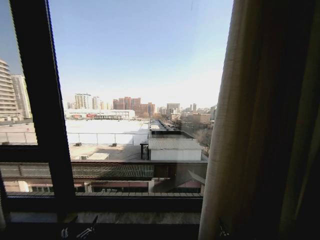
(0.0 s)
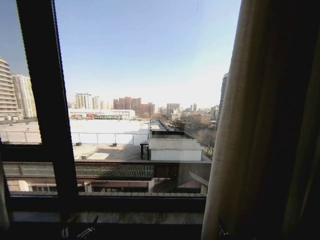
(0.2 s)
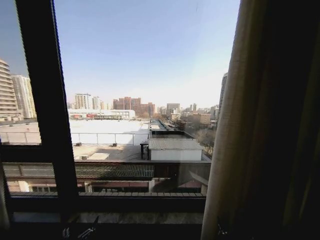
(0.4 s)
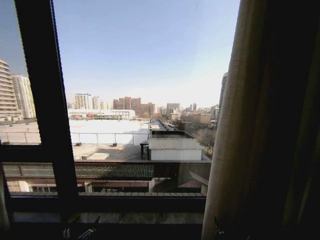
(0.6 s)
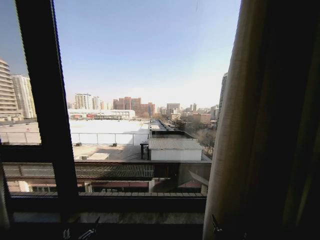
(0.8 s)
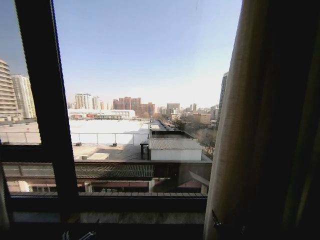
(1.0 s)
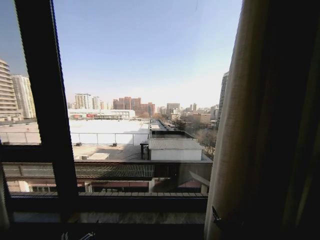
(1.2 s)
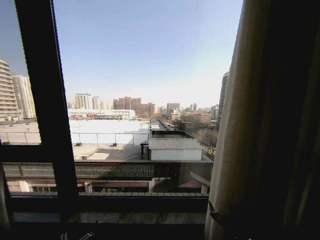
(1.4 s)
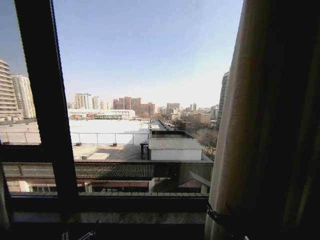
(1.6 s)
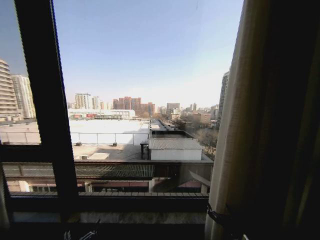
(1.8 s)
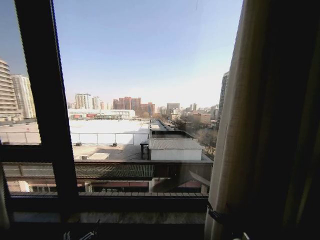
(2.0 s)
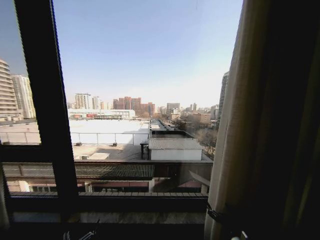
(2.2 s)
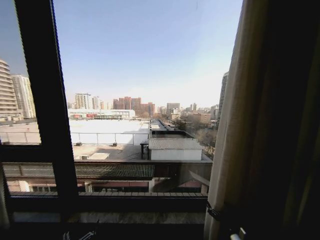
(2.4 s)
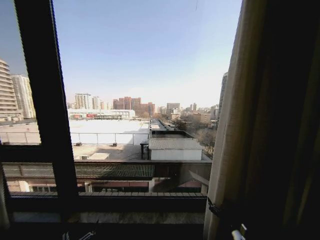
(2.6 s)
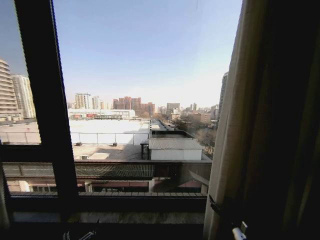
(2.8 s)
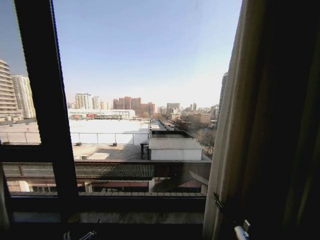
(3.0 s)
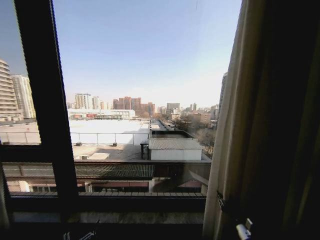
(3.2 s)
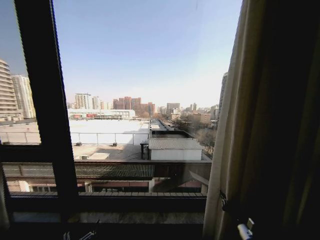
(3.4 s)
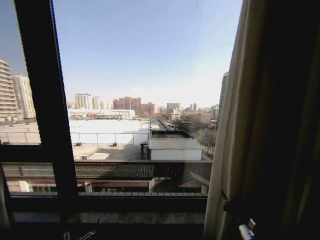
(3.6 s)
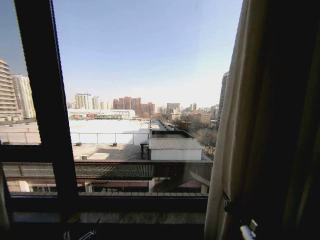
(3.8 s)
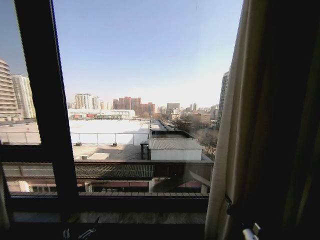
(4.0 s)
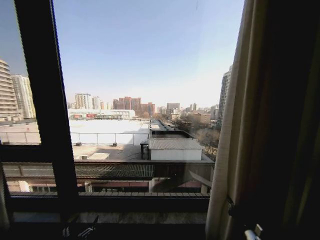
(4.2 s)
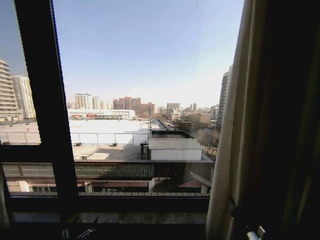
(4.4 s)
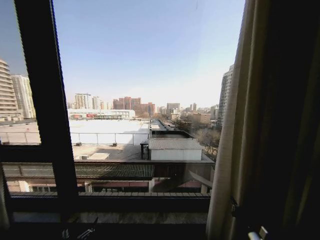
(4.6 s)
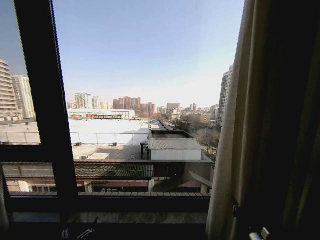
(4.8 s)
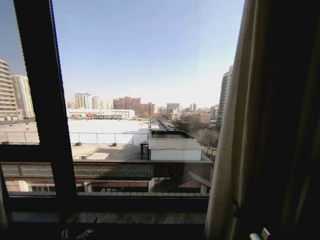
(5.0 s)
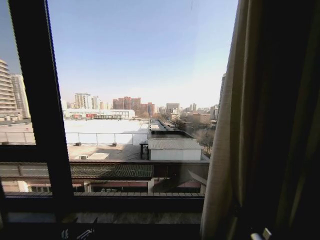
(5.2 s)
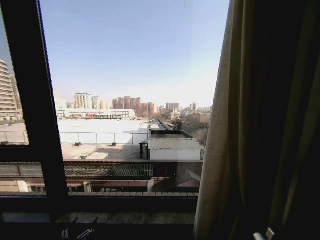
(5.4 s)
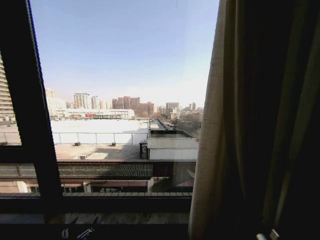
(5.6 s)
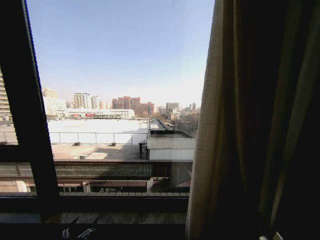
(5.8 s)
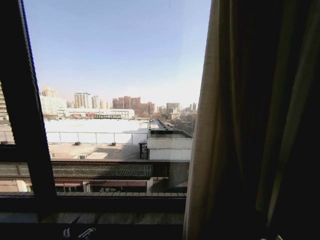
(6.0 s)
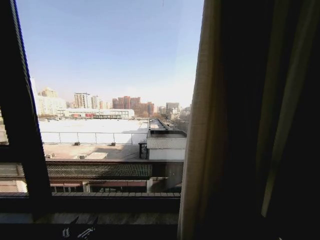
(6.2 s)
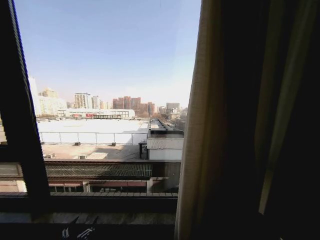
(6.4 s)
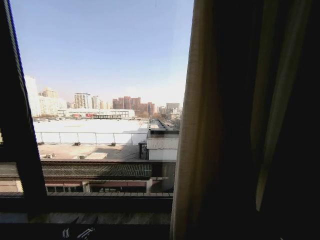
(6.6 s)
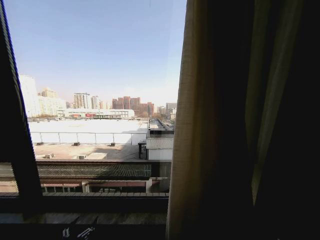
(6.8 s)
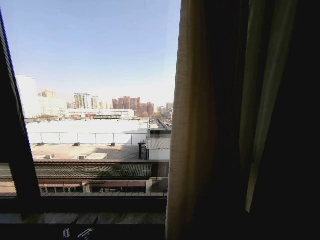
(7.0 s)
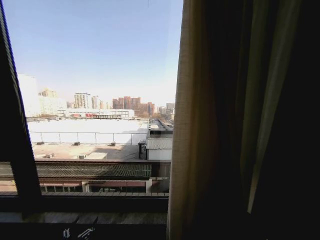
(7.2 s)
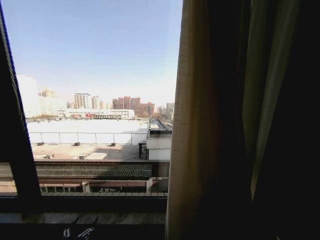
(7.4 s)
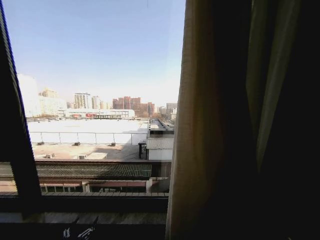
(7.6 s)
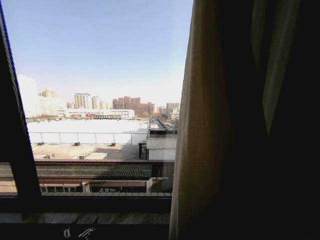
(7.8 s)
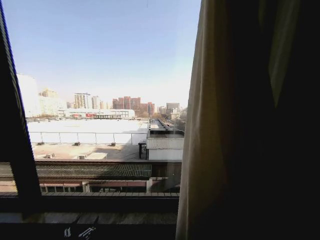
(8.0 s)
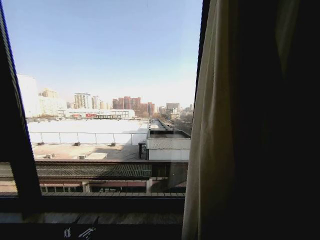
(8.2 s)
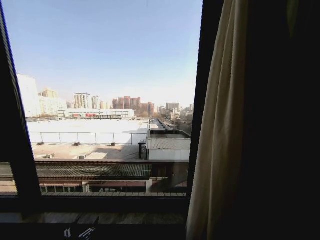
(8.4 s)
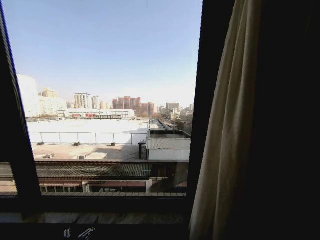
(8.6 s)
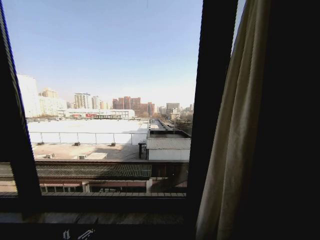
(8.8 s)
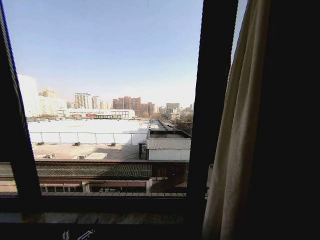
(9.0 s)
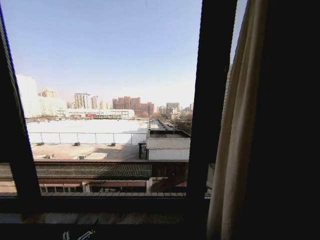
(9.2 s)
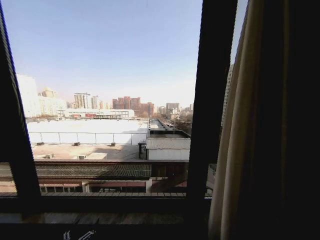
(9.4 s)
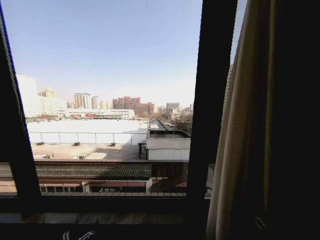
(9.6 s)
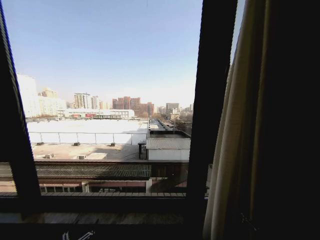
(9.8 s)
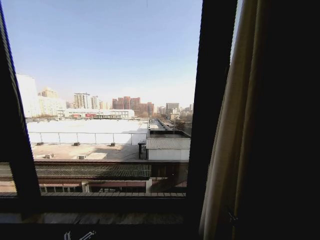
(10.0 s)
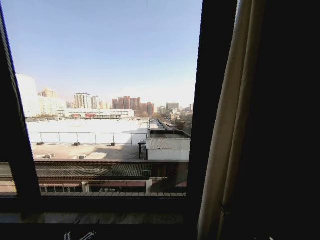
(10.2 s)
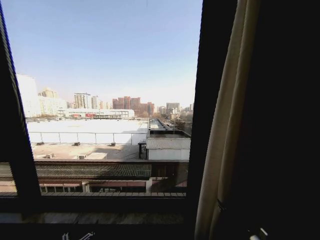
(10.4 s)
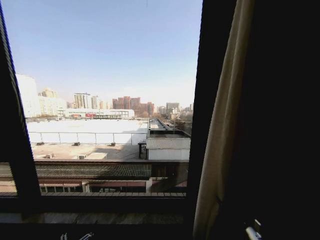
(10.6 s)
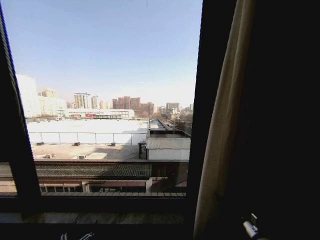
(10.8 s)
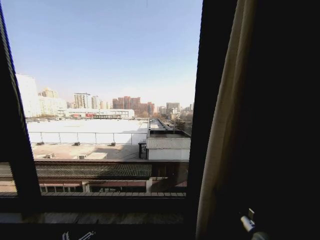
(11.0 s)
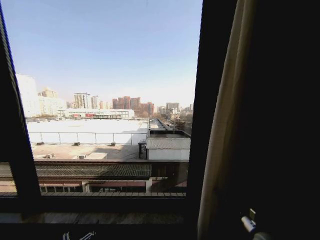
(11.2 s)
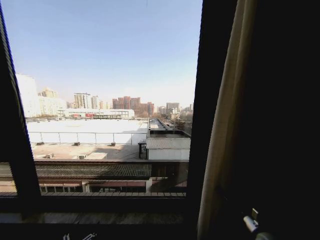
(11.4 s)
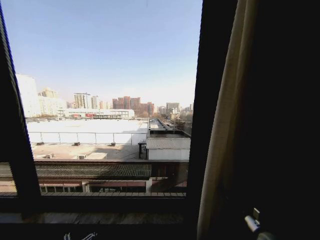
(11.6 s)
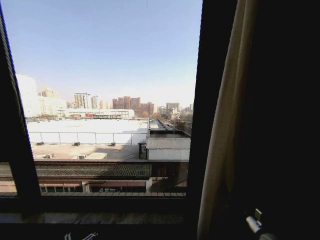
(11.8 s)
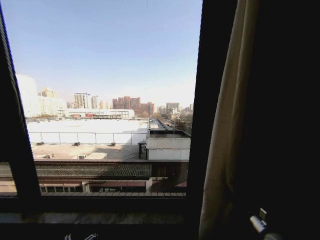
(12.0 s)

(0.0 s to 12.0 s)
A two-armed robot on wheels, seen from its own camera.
Task of the whole recording: Open the curtains by pulling them apart, changing their state from closed to fully open.
0.0 s - 1.6 s: The right gripper shifts about 10 cm forward.
1.6 s - 3.0 s: The right gripper travels forward and to the right by some 10 cm, and closes its fingers.
3.0 s - 4.4 s: The right gripper closes up.
6.0 s - 7.6 s: The grippers stay close to where they were, moving slightly.
7.6 s - 9.0 s: The right gripper is displaced to the right by some 15 cm.
9.0 s - 10.4 s: The right gripper shifts approximately 20 cm to the left, and opens up.
10.4 s - 12.0 s: The right gripper travels forward by roughly 5 cm, and closes its fingers.

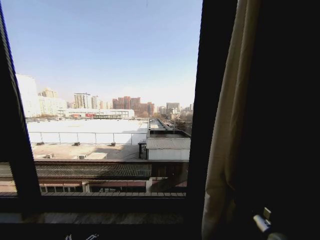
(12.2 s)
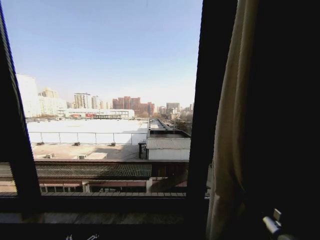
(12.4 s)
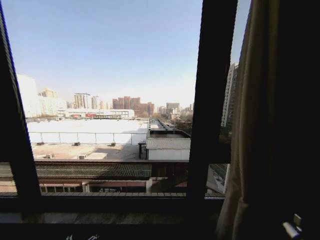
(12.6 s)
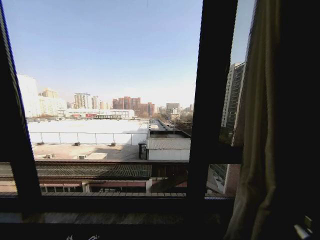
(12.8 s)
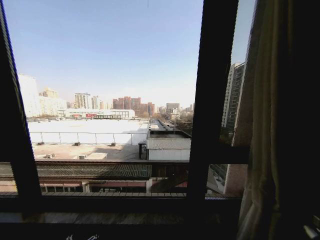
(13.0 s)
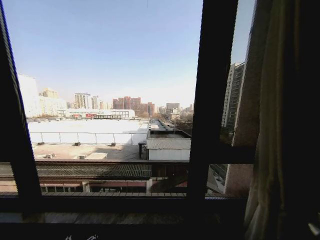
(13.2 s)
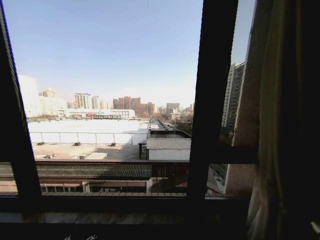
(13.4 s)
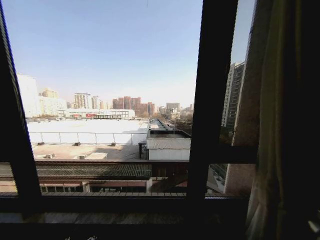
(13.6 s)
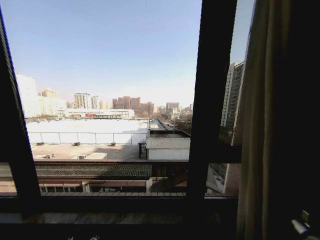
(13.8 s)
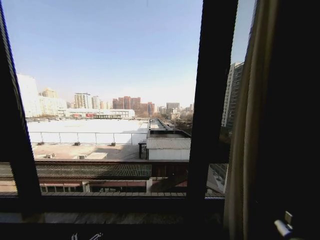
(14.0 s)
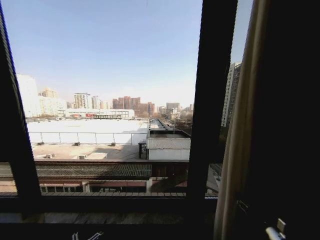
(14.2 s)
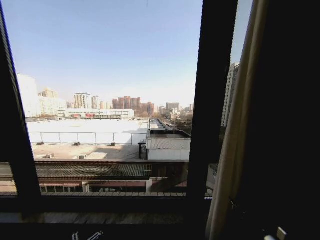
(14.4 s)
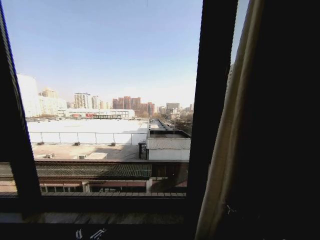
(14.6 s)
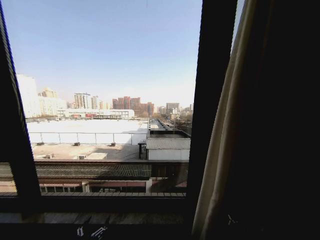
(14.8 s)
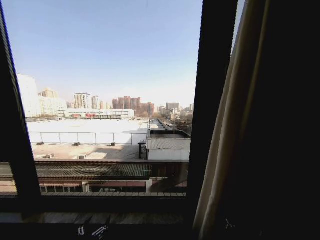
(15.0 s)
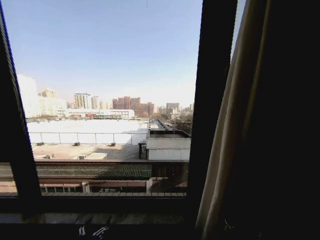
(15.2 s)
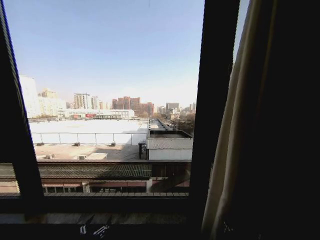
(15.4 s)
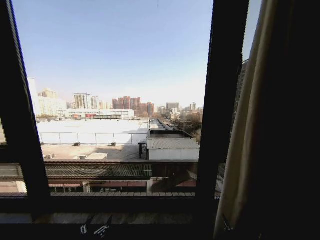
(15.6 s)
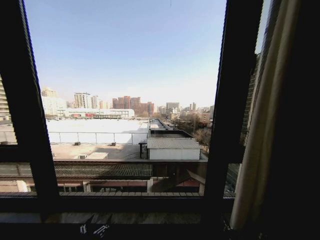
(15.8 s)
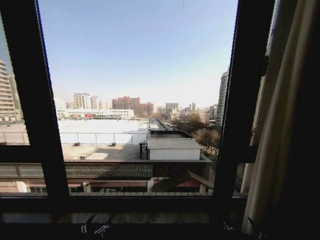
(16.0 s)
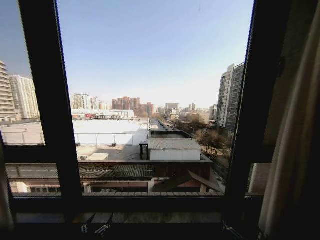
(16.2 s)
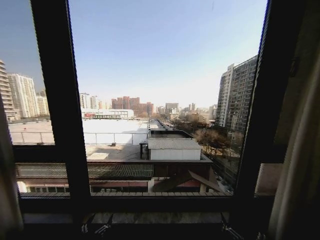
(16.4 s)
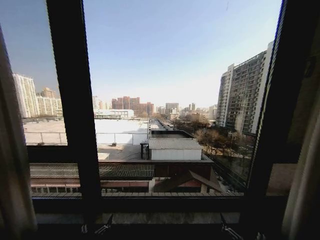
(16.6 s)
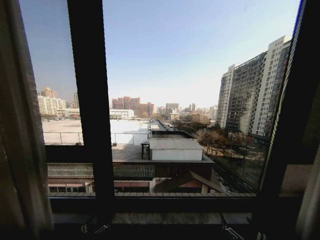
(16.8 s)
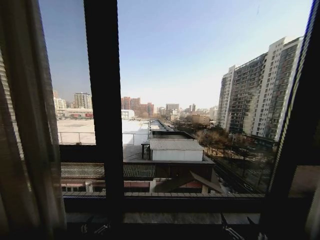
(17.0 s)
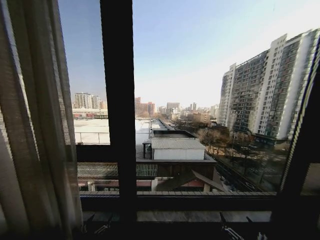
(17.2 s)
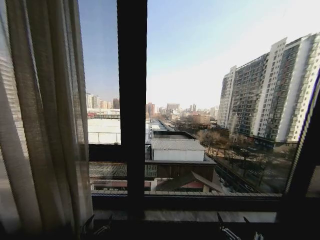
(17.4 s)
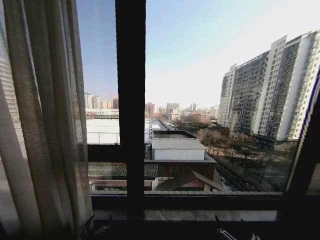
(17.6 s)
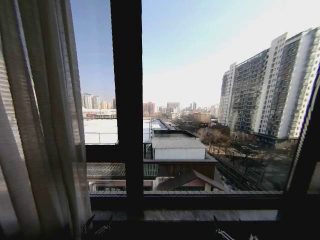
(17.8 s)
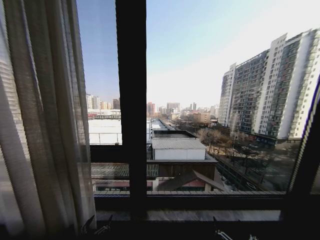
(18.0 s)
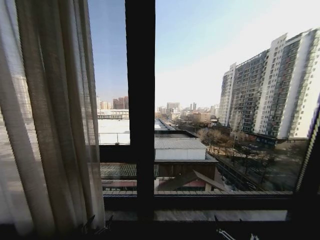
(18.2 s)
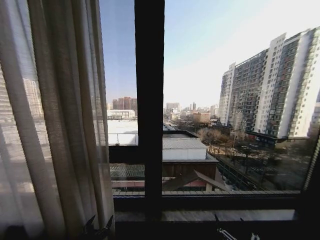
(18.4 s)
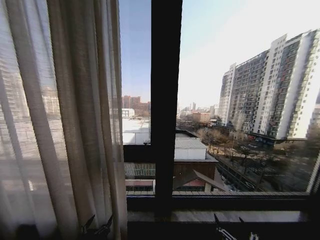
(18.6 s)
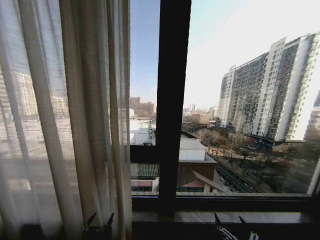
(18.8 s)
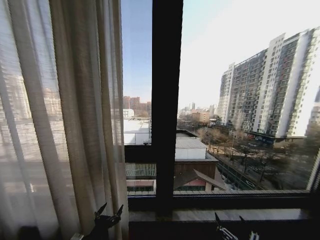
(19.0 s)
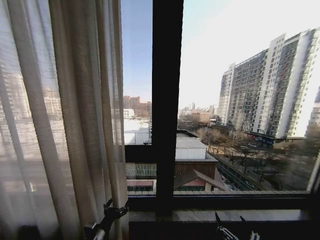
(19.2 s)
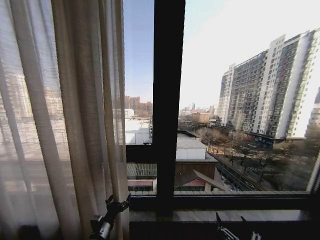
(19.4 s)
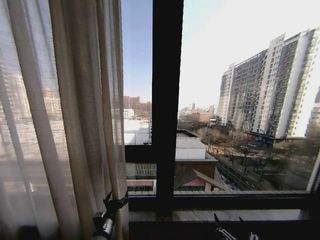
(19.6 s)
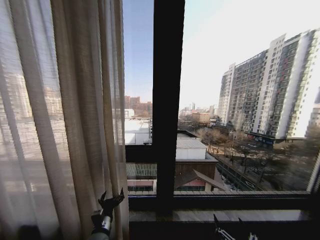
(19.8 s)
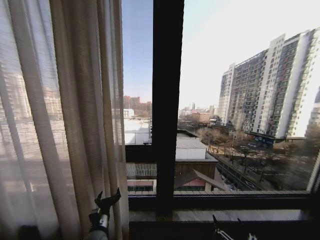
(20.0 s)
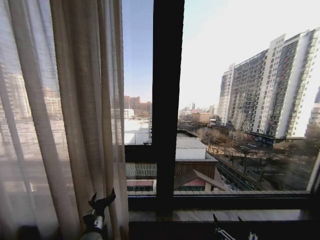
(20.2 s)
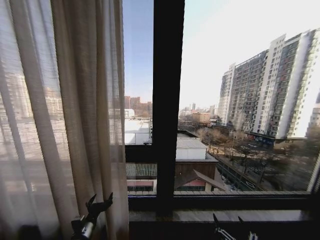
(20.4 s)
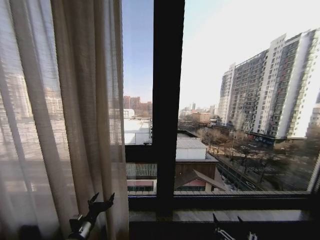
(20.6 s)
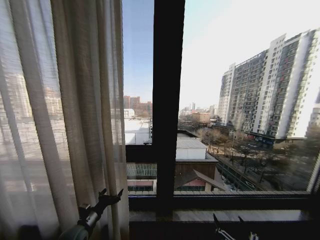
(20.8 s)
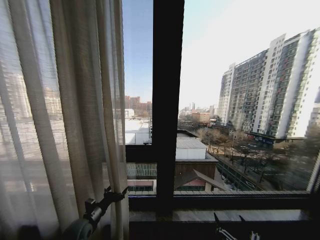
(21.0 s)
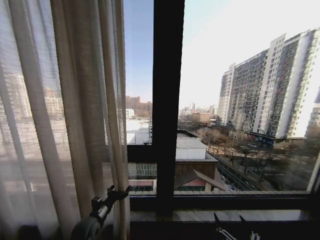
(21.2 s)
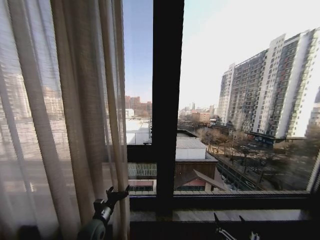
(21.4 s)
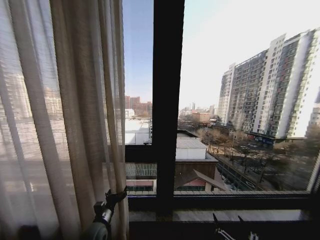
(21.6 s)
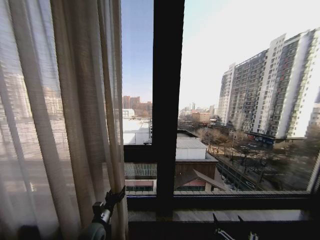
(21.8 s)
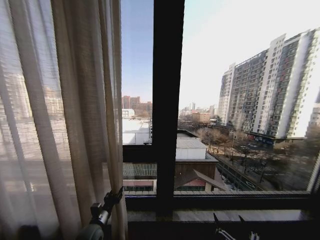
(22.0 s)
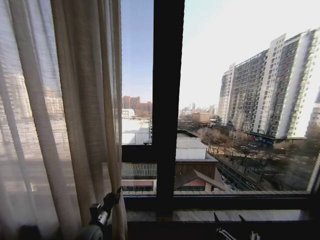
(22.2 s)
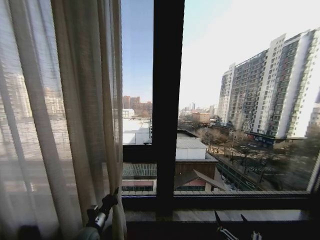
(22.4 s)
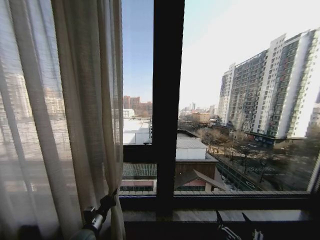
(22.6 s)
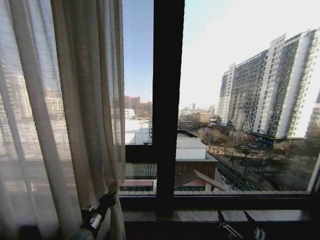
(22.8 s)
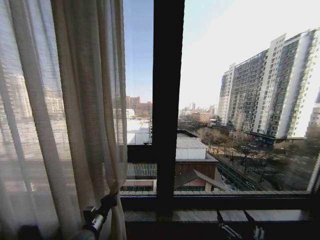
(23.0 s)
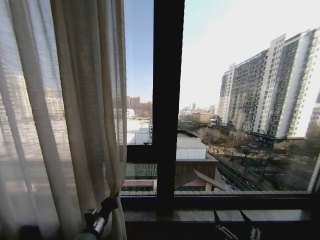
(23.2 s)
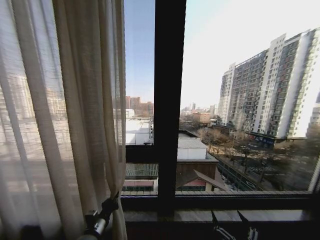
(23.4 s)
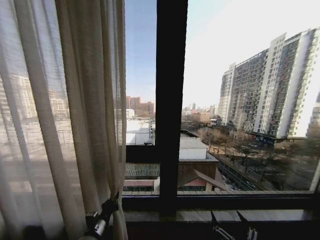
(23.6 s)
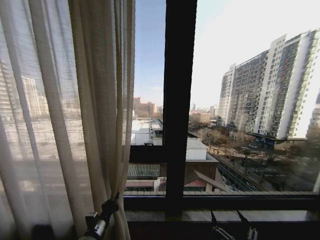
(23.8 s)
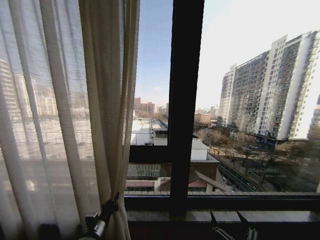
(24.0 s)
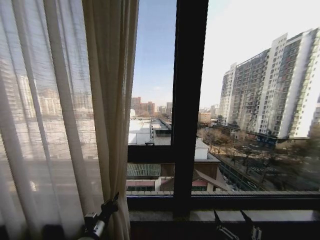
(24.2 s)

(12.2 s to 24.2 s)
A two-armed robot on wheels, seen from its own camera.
Task of the whole recording: Open the curtains by pulling them apart, changing their state from closed to fully open.
12.2 s - 13.8 s: The right gripper is displaced to the right by roughly 15 cm.
13.8 s - 15.2 s: The right gripper shifts some 30 cm to the left and backward, and opens its fingers.
18.2 s - 19.8 s: The left gripper travels forward and to the right by about 15 cm.
19.8 s - 21.2 s: The left gripper moves to the left and forward, some 10 cm.
21.2 s - 22.6 s: The left gripper closes up.
